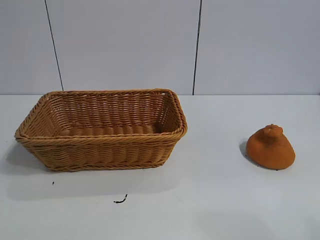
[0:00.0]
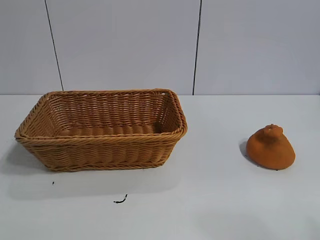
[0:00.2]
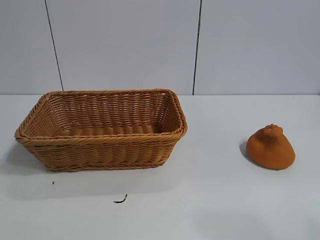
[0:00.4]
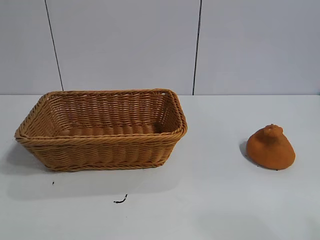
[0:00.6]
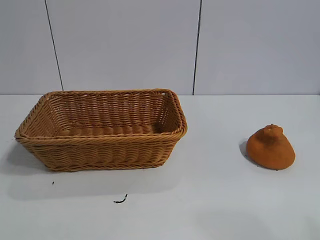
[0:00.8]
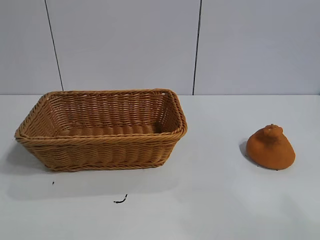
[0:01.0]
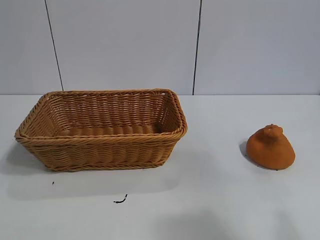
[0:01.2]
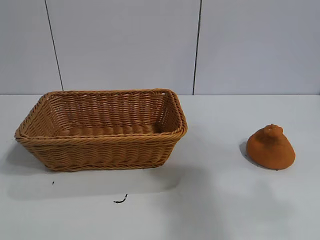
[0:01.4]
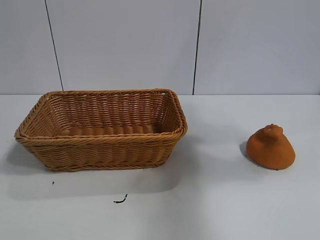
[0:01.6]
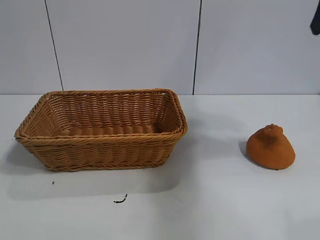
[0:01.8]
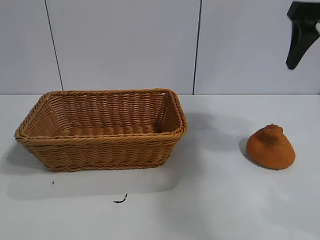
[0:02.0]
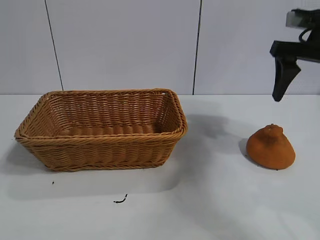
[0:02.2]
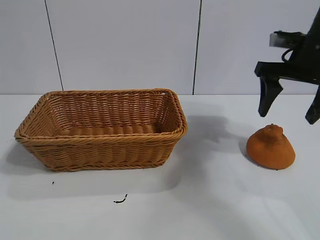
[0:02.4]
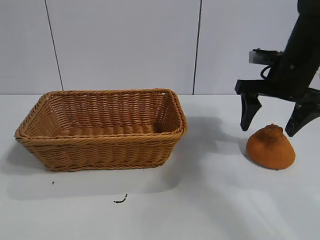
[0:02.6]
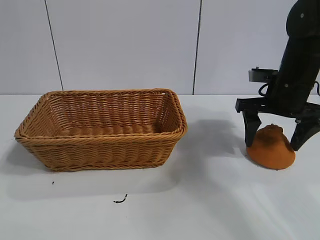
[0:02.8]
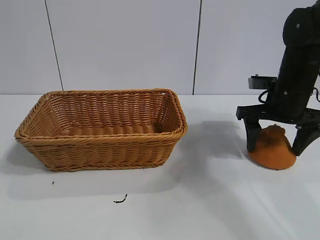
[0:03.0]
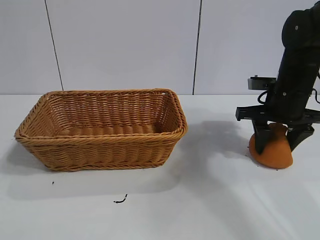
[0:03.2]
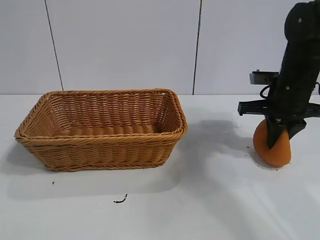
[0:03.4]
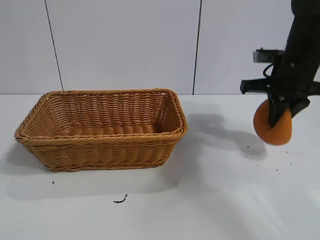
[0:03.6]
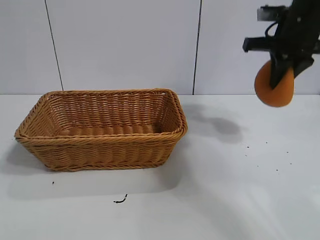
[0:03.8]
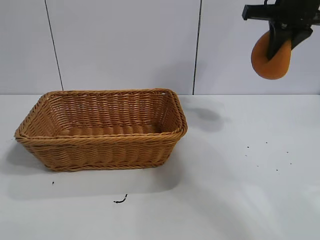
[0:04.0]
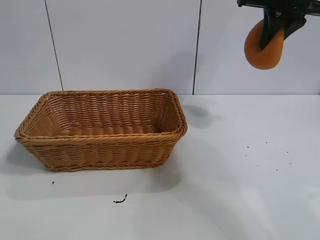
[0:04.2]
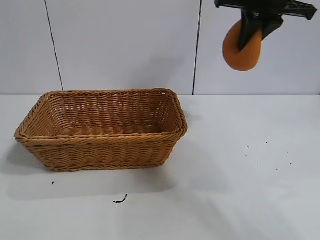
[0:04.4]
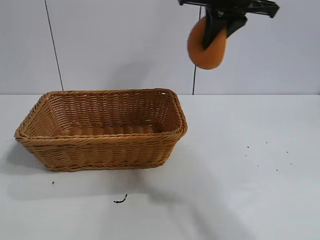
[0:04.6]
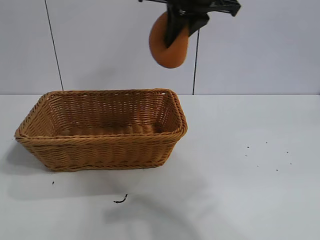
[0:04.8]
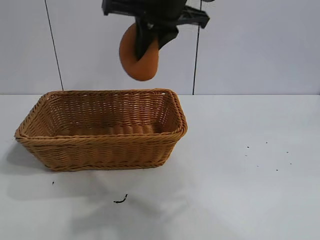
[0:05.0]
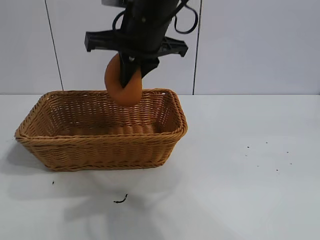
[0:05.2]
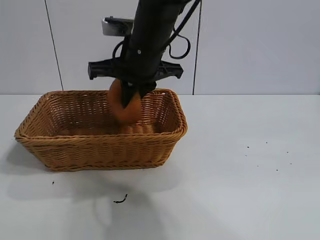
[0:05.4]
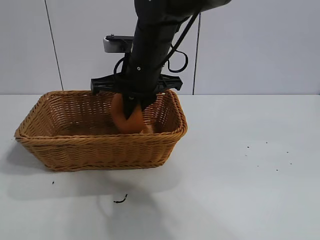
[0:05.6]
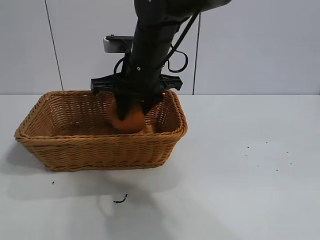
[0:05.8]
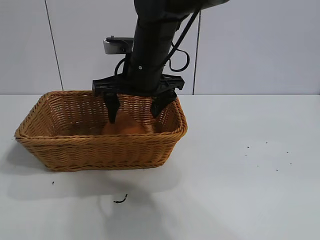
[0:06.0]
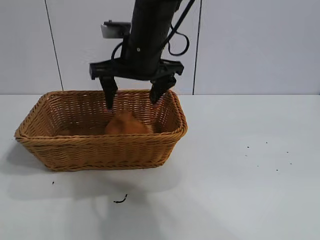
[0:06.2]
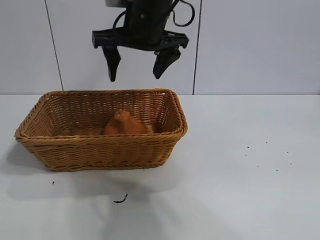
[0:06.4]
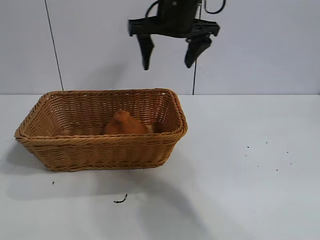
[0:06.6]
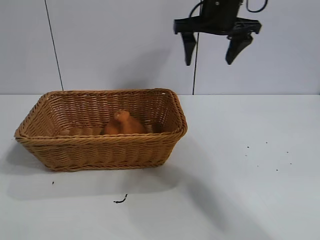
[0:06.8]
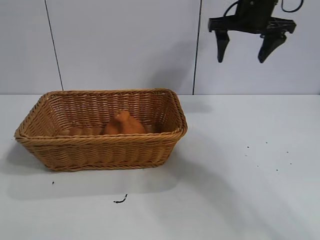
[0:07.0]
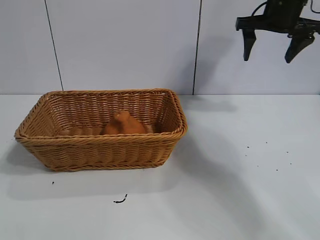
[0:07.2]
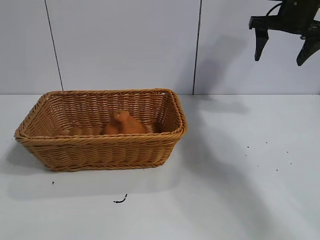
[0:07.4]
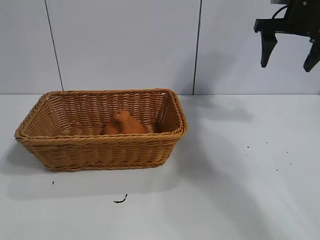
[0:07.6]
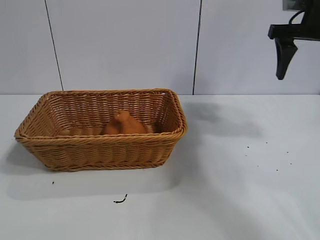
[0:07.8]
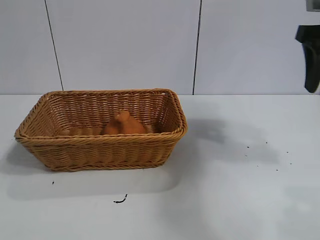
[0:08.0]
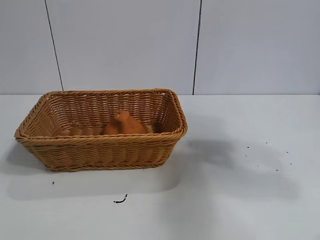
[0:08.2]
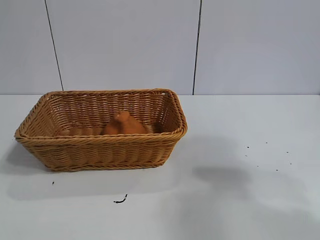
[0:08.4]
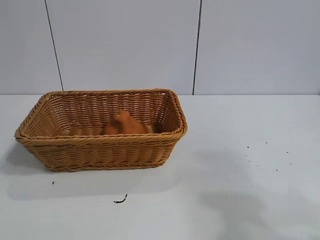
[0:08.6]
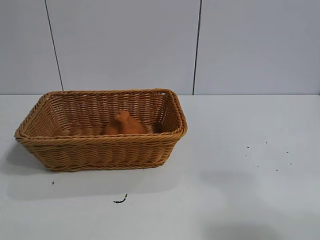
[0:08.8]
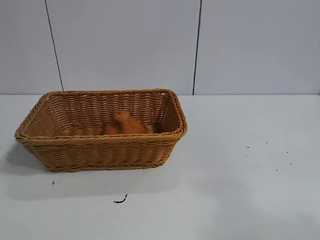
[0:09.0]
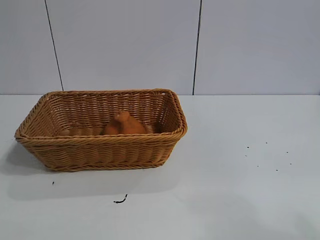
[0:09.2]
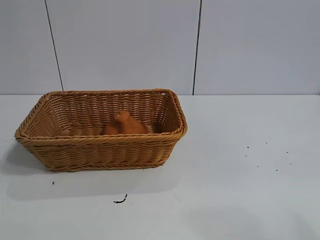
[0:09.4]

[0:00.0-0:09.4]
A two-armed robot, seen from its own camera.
Task of the whole recording: pick up the orange and put it into the basket.
Step, 0:00.6 to 0:03.2: Grasp the orange with right gripper.
Step, 0:03.4 to 0:06.2: Place the orange in the basket with right gripper.

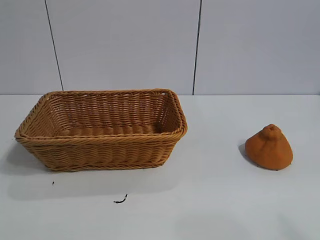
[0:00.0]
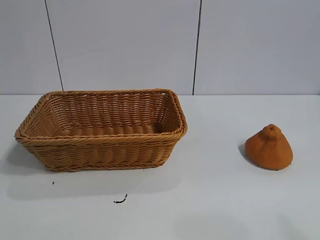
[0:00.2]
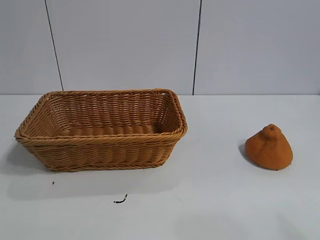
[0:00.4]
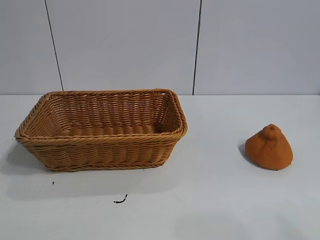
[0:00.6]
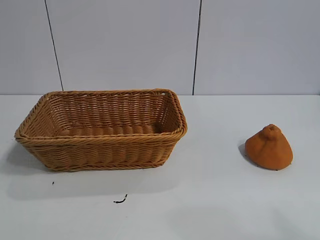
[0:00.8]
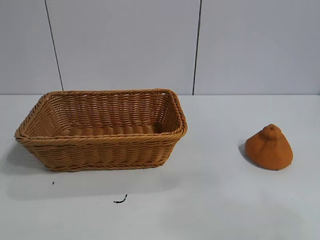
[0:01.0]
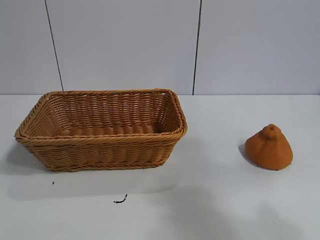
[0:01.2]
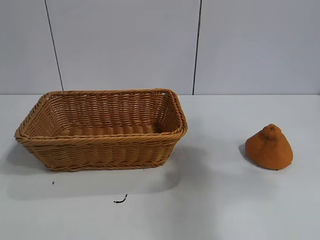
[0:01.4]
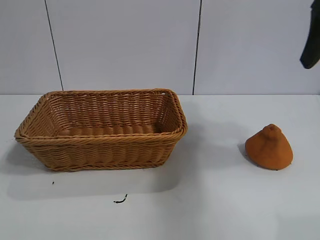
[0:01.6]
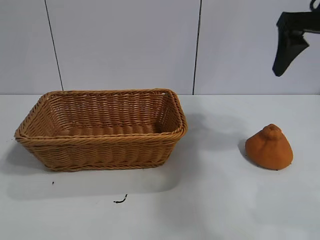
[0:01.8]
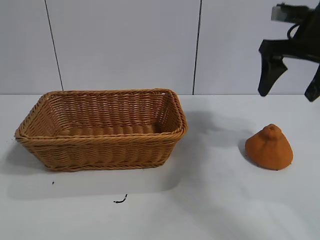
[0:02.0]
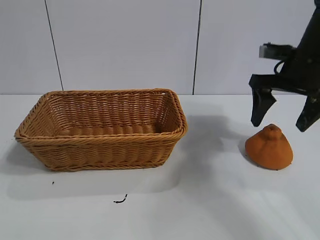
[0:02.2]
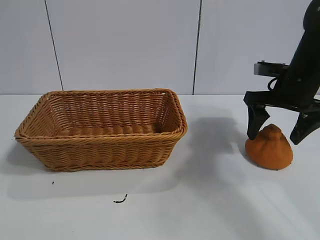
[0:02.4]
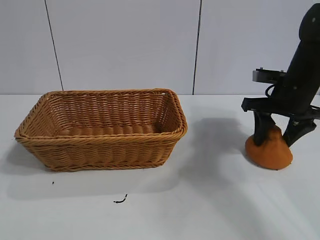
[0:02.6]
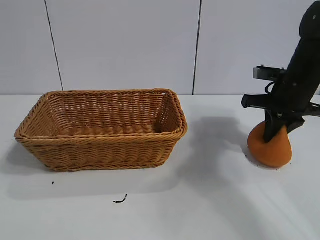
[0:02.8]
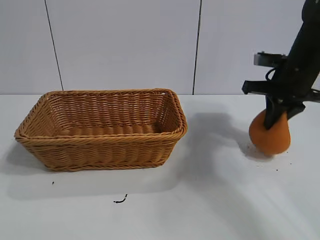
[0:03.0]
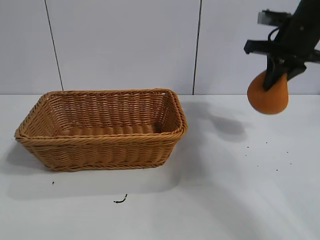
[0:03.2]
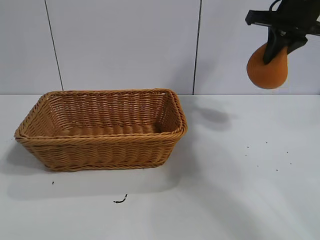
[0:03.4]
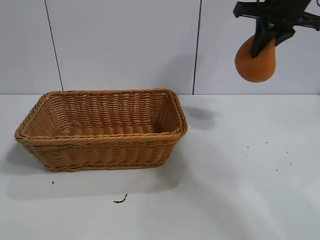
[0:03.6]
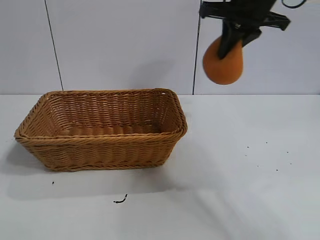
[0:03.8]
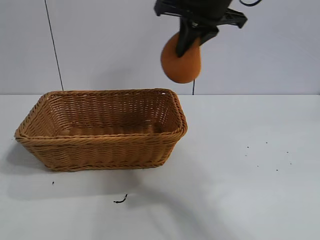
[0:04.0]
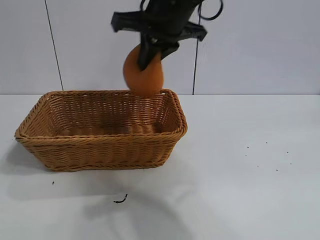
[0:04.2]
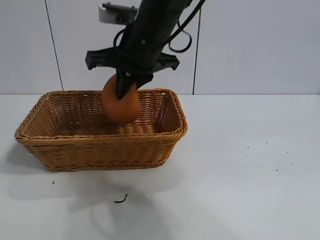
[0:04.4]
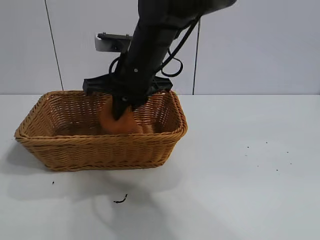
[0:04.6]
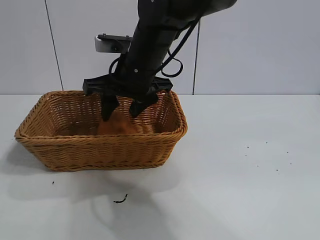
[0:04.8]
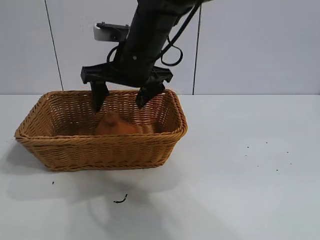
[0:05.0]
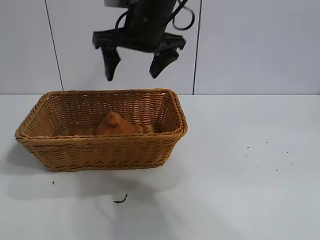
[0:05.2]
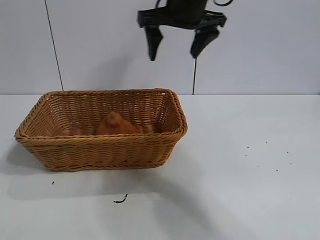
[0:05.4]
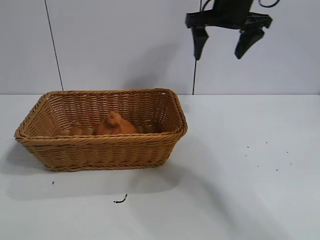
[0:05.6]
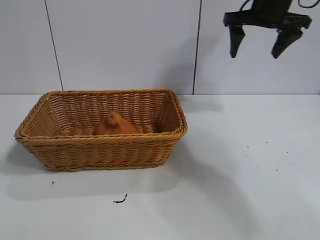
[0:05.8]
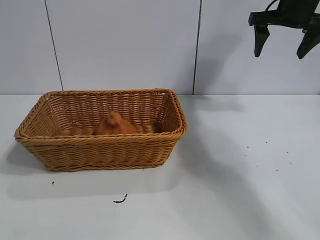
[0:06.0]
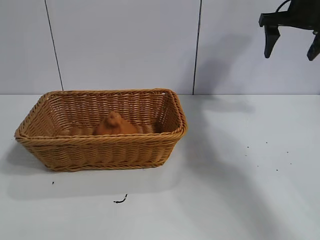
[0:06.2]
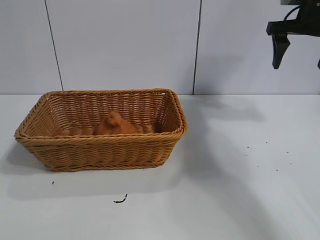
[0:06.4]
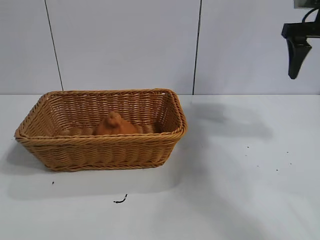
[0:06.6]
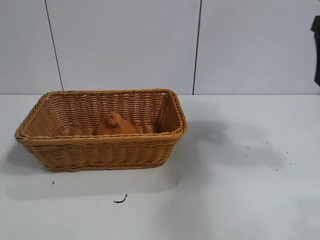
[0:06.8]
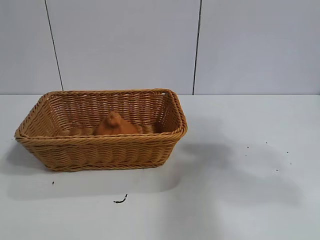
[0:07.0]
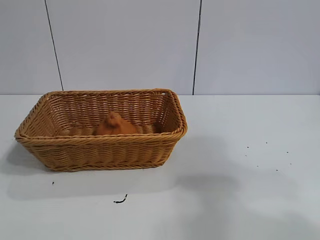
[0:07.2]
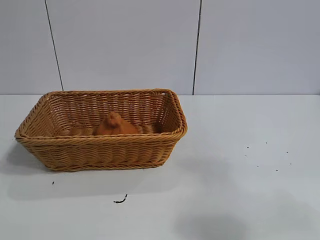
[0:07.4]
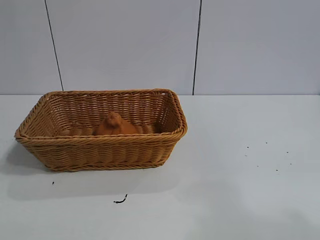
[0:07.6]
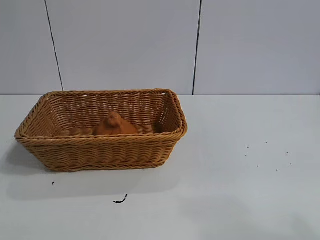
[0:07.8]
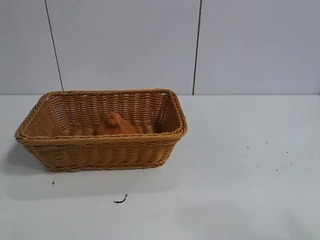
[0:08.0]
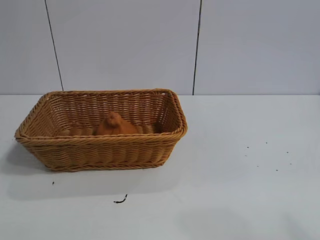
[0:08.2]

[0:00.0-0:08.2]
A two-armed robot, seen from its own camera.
Task of the whole recording: pick up the orange and put it into the basket.
Step, 0:00.8 to 0:02.6: Grasp the orange with right gripper.
Step, 0:03.0 to 0:04.8: Place the orange in the basket with right gripper.
